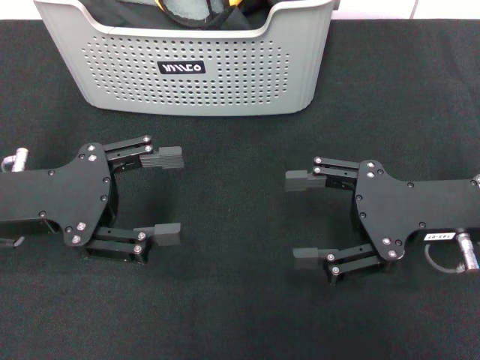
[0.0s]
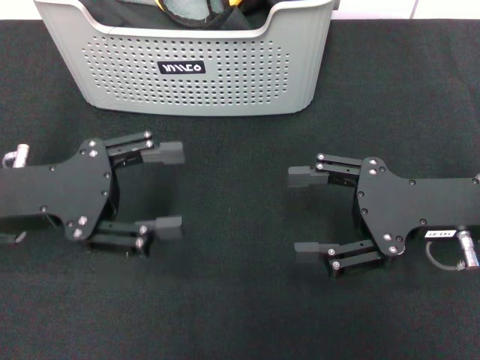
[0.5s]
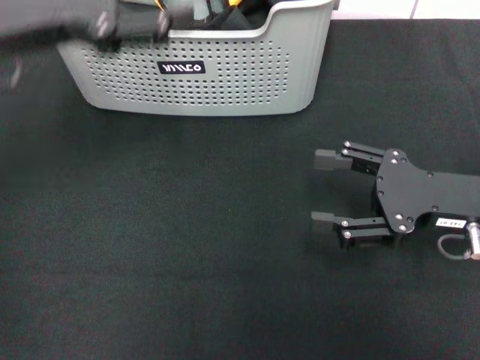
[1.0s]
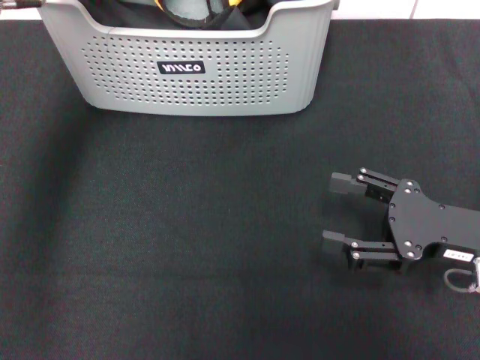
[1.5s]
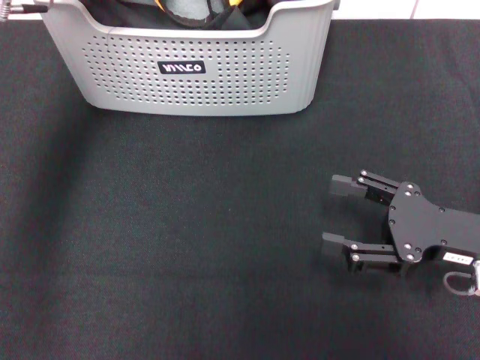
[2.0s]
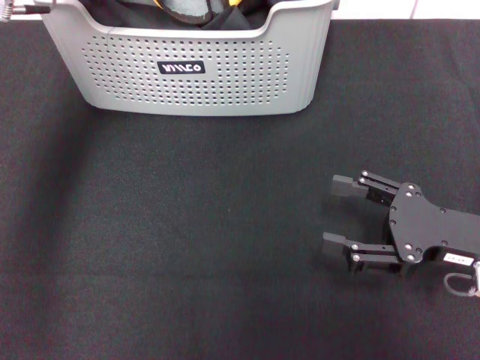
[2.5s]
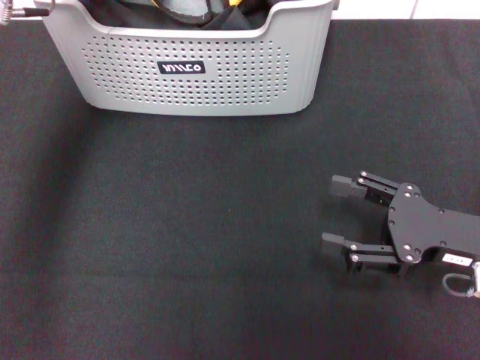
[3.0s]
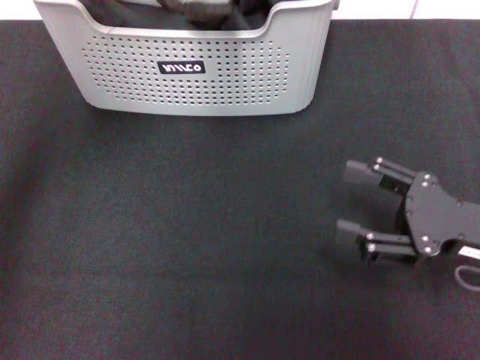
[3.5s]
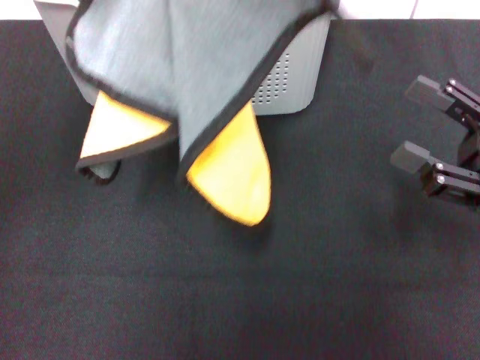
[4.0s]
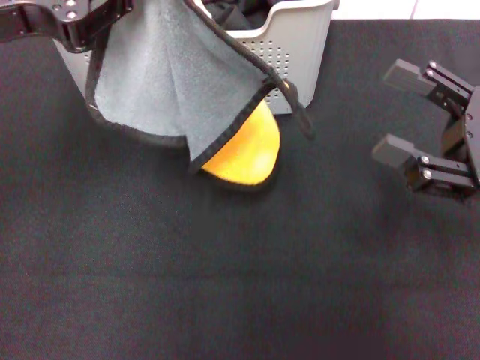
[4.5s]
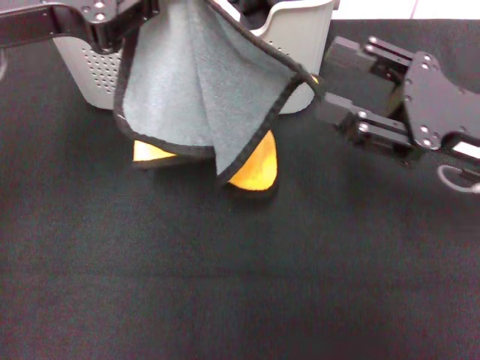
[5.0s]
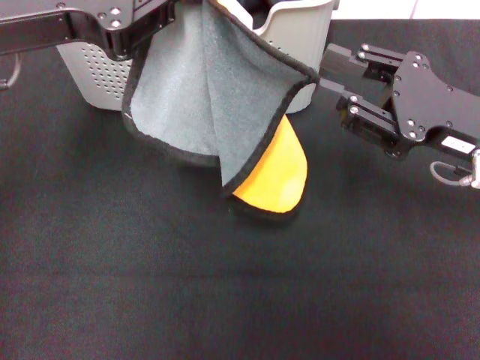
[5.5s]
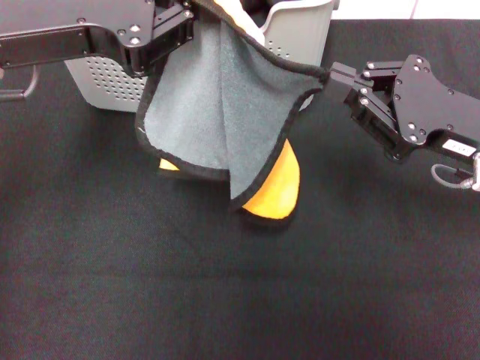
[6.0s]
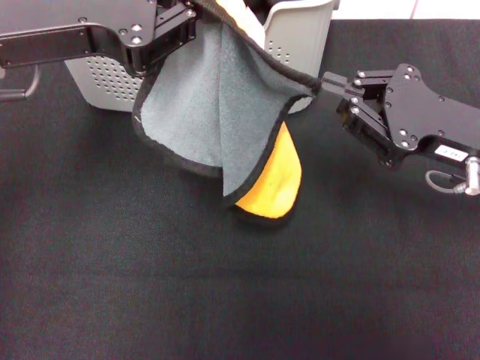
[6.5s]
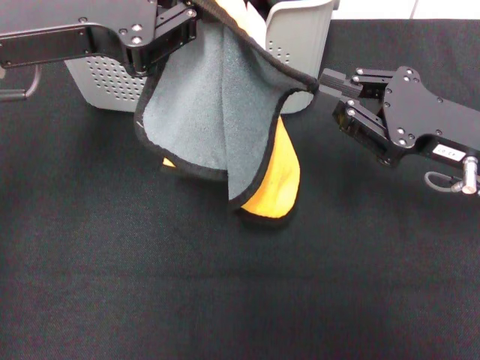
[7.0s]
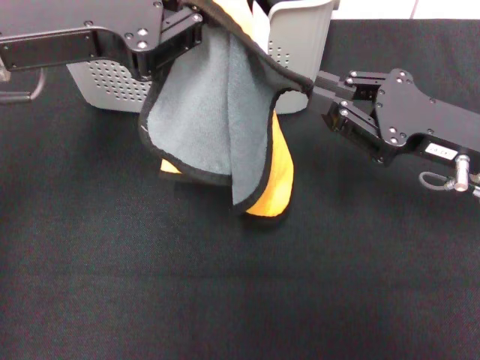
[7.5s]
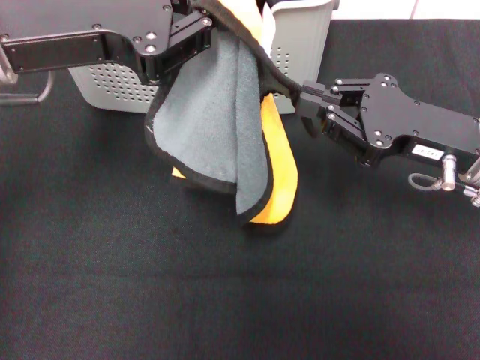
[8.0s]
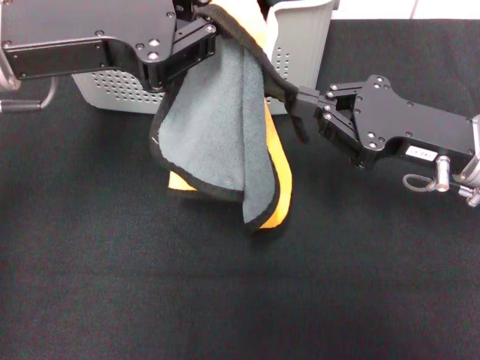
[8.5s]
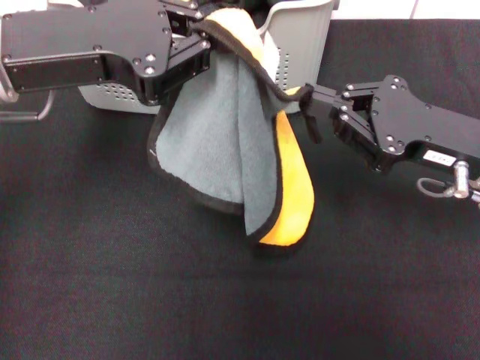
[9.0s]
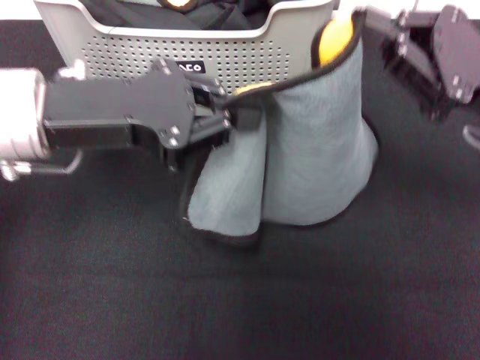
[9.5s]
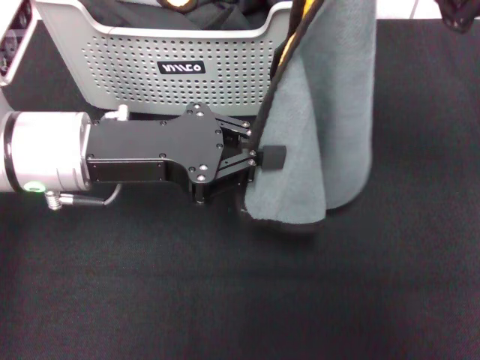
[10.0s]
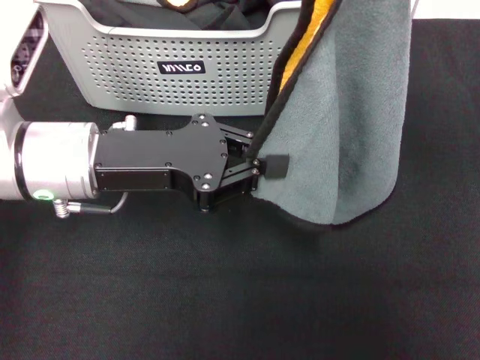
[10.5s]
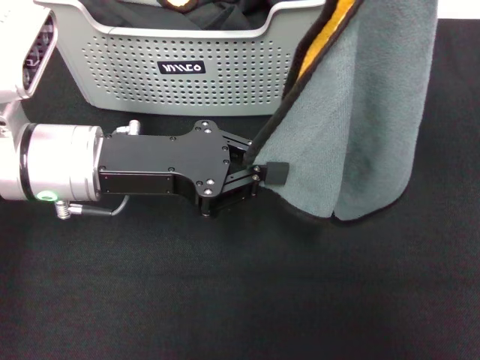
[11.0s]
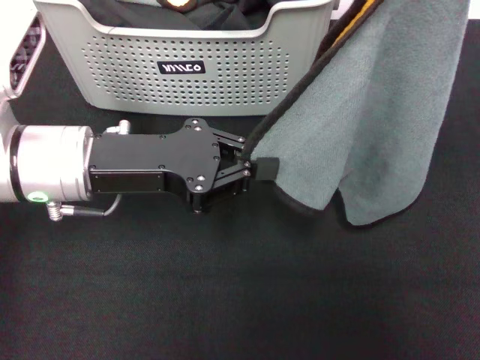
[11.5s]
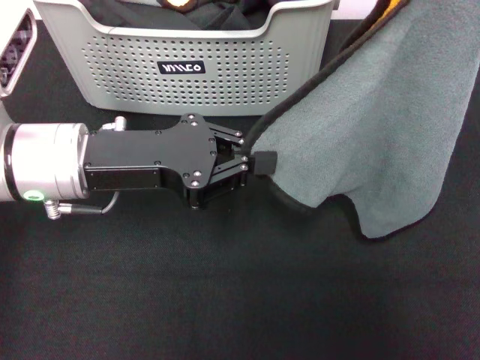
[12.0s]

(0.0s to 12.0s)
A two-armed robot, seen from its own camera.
Task of the whole recording: pick up the towel from the storage box and lay it flat on the black tablecloth.
Step, 0.0s - 3.0s: Pick up a towel with the left gripper.
Step, 3.5s - 6.0s: Spread the towel flat with the left gripper.
0.0s - 2.0s: The right gripper ends up roughly 5 cm from where it was, while the left gripper goes roughly 20 cm forward, upward and to the right.
2.0s - 4.0s: The left gripper is displaced backward and upward by about 15 cm, and closes; the right gripper shifts by roughly 5 cm.
4.0s - 6.0s: The right gripper heads to the left, covering some 5 cm, and closes up, while the left gripper heads downward, covering approximately 5 cm.
6.0s - 8.0s: The grippers make only small movements.
8.0s - 10.0s: The right gripper travels upward by some 10 cm. Meanwhile the left gripper goes about 10 cm downward.
10.0s - 12.0s: The right gripper travels to the right by approximately 5 cm.

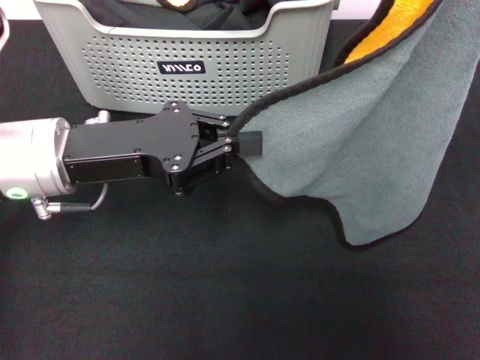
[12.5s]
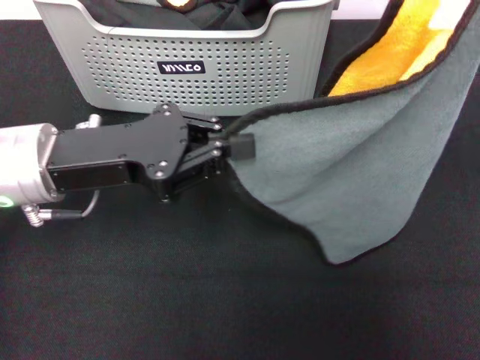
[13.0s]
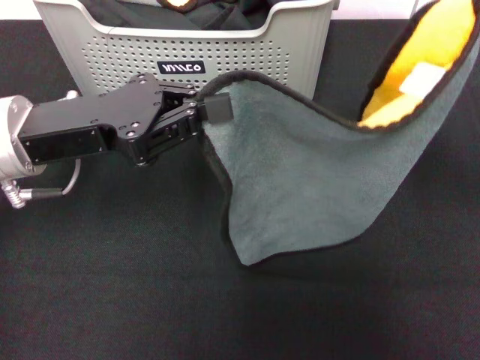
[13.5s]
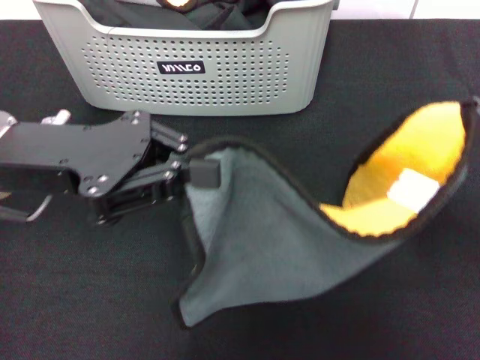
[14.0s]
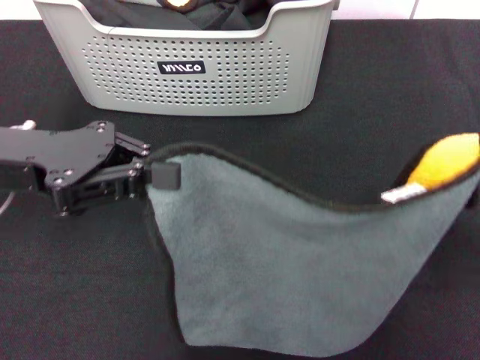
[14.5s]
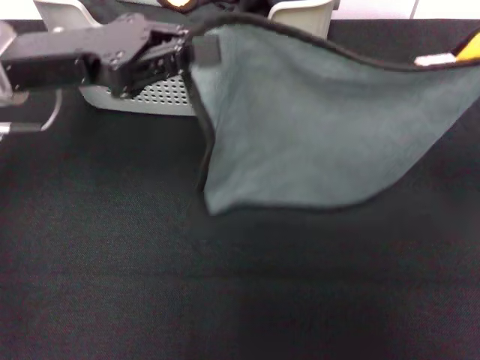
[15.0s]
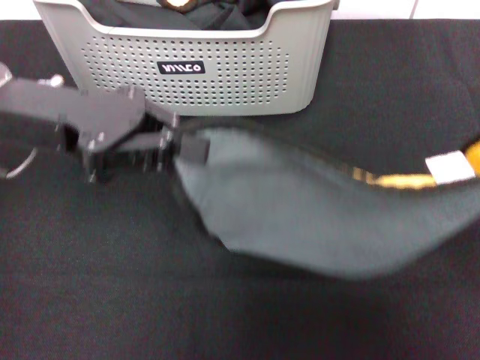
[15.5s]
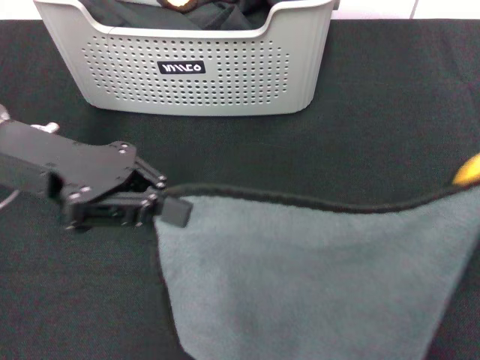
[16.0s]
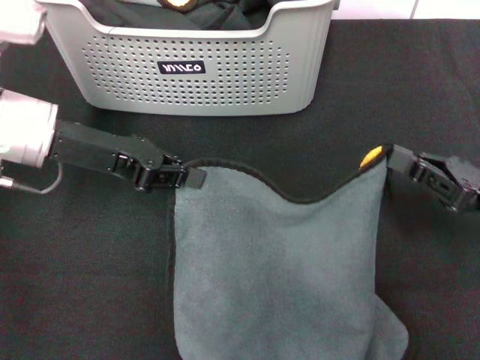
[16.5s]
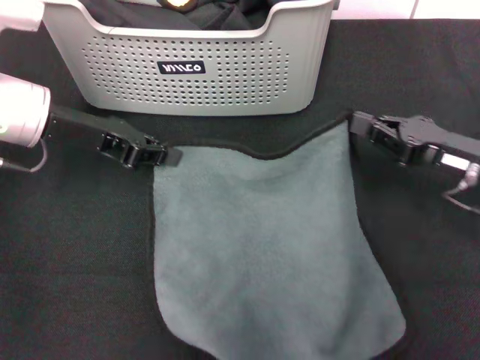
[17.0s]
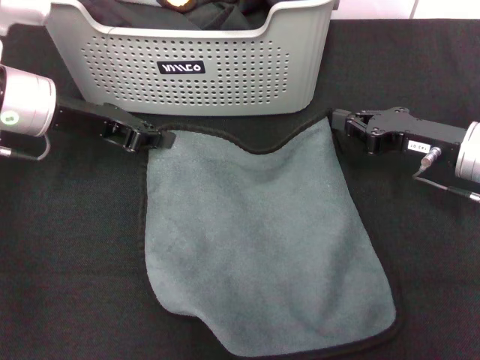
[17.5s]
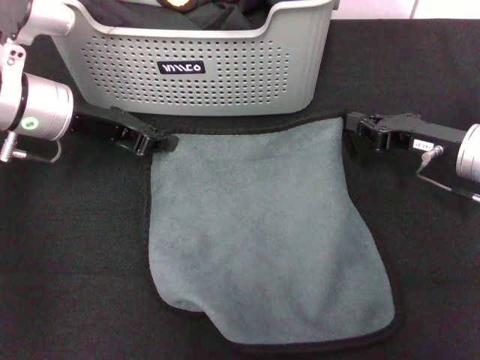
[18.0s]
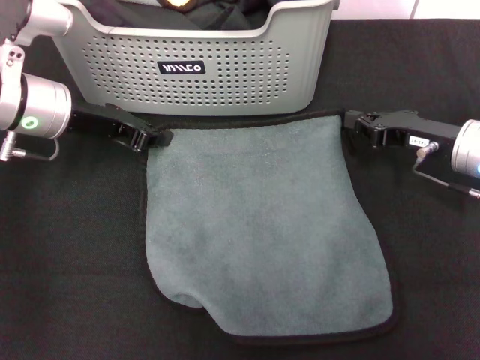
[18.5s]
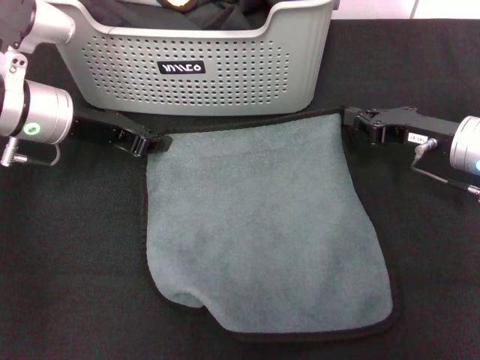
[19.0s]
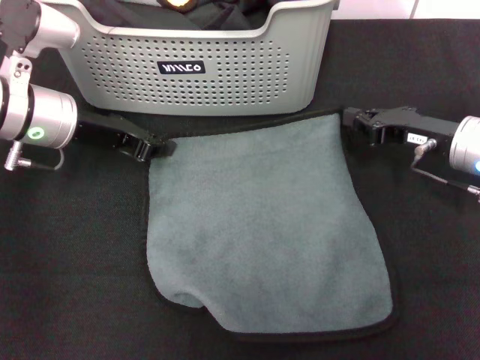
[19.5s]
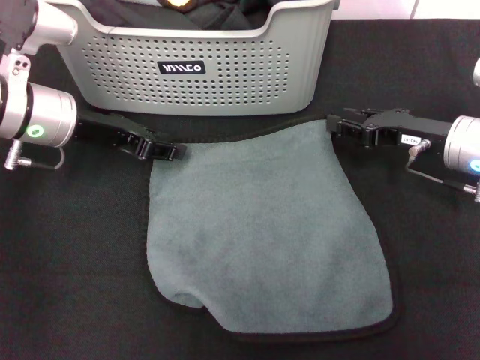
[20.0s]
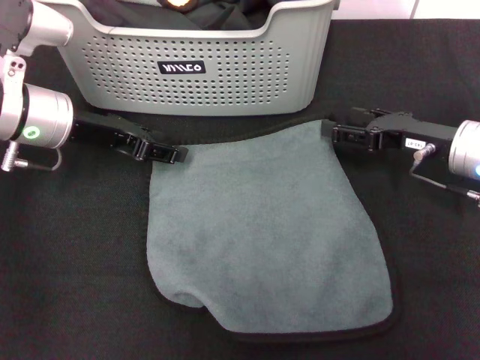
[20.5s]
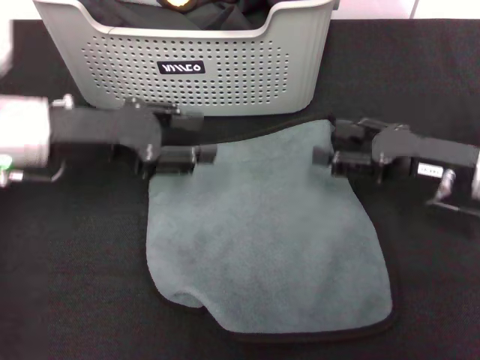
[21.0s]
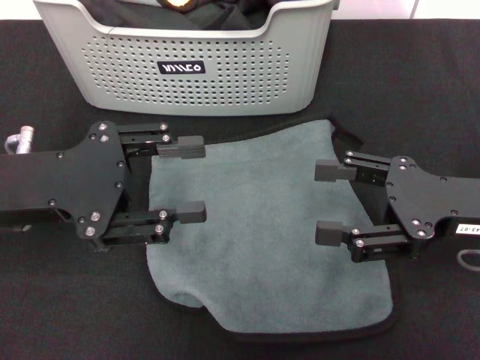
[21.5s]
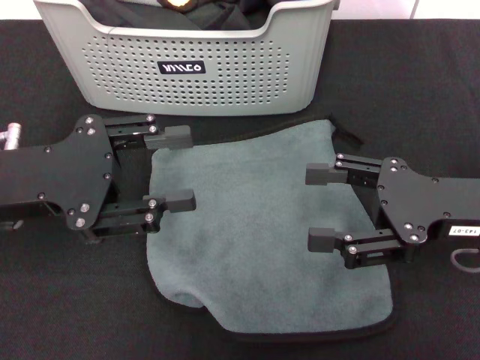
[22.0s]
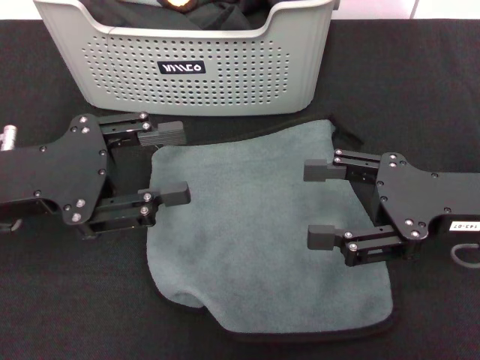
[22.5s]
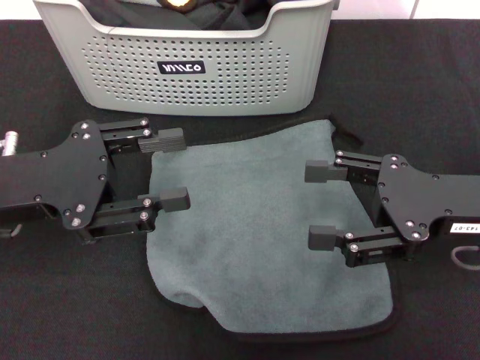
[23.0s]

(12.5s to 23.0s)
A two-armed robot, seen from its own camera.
Task of the whole recording: pick up the towel from the storage box and lay it flat on the black tablecloth.
Step, 12.5s - 20.0s: Spread the towel flat with the right gripper.
12.5s - 14.5s: The left gripper travels to the left by about 5 cm. The right gripper shifts some 15 cm backward and downward.
14.5s - 16.5s: The right gripper heads downward and forward, covering some 10 cm. Meanwhile the left gripper shifts about 5 cm forward.
16.5s - 19.0s: The right gripper goes roughly 10 cm forward and to the left.
19.0s - 21.0s: The right gripper opens up. The left gripper ends up some 5 cm from where it was, and opens up.
21.0s - 23.0s: The grippers both shift backward by some 5 cm.
